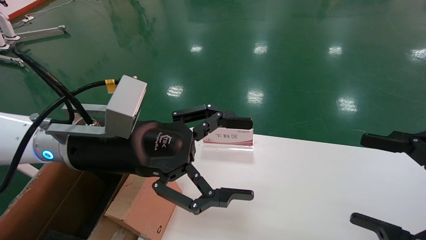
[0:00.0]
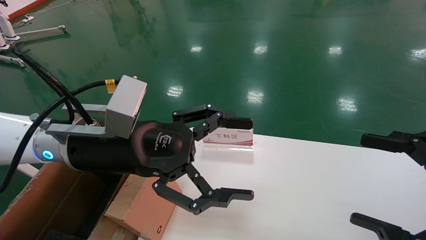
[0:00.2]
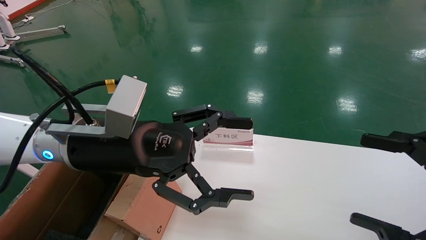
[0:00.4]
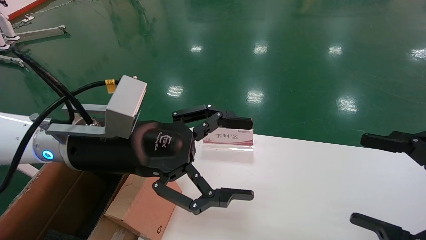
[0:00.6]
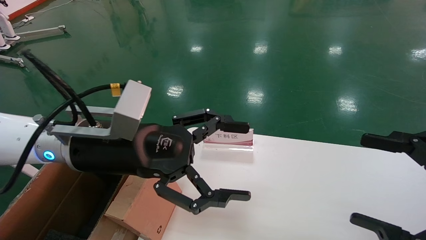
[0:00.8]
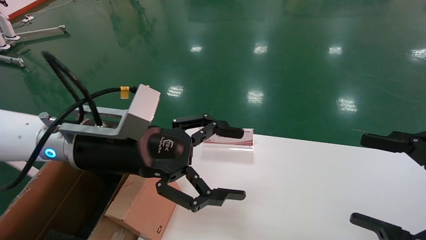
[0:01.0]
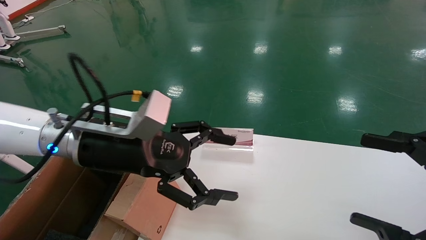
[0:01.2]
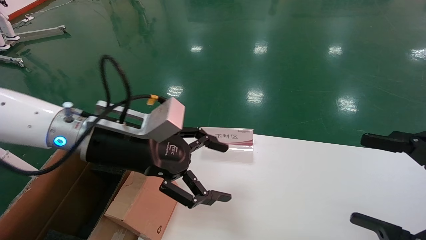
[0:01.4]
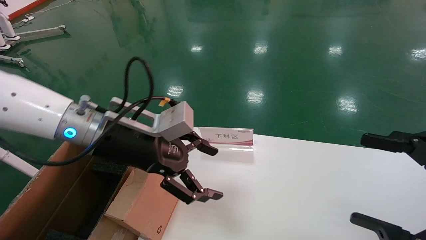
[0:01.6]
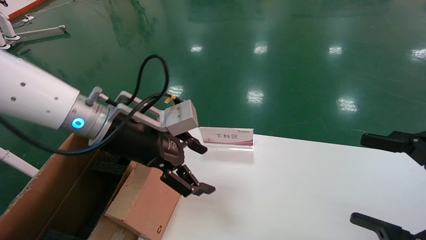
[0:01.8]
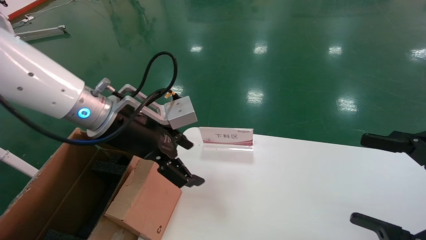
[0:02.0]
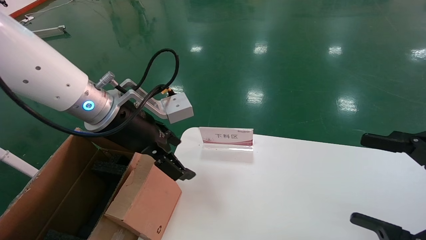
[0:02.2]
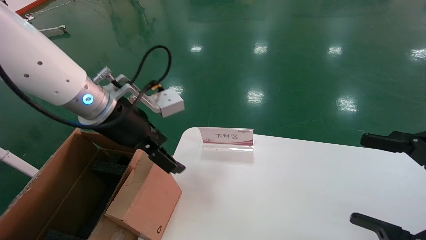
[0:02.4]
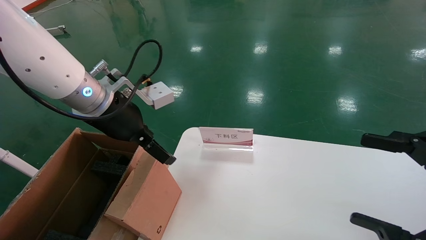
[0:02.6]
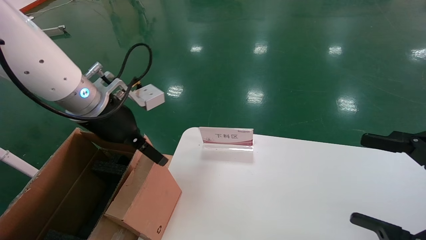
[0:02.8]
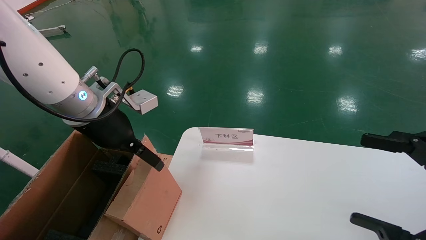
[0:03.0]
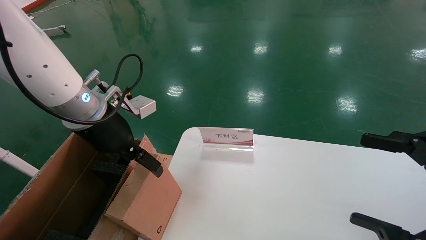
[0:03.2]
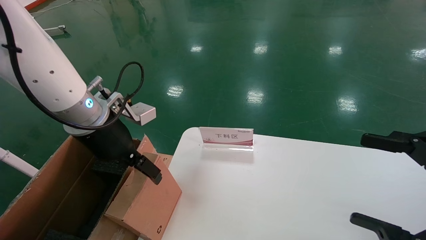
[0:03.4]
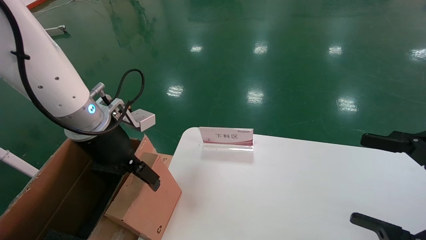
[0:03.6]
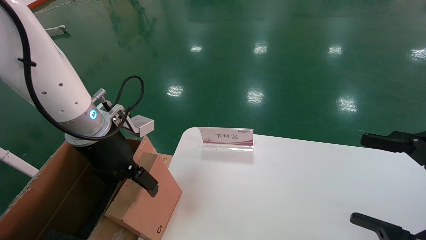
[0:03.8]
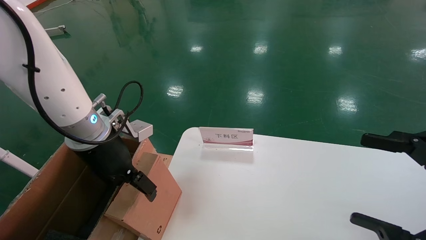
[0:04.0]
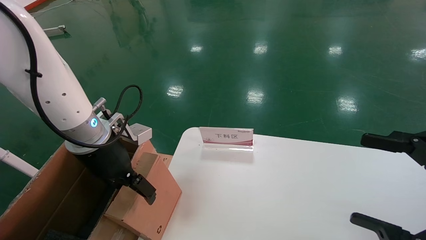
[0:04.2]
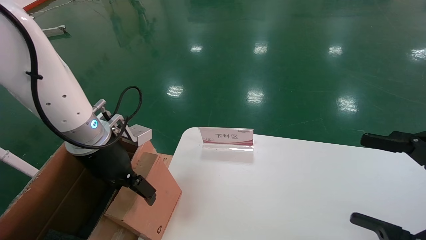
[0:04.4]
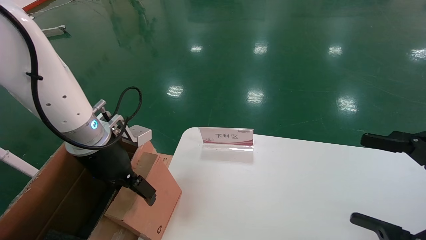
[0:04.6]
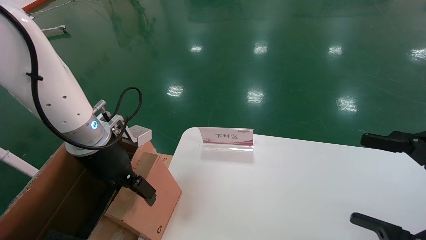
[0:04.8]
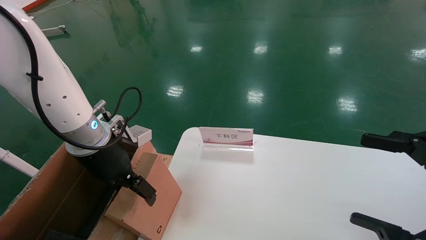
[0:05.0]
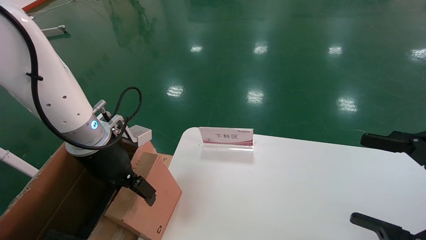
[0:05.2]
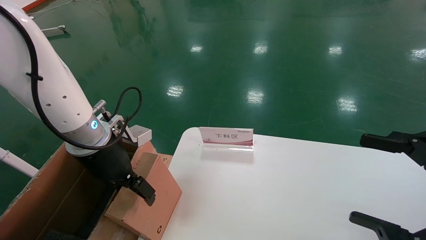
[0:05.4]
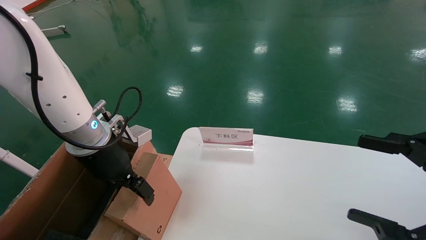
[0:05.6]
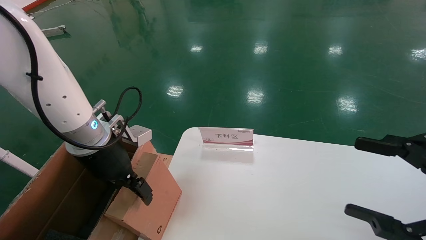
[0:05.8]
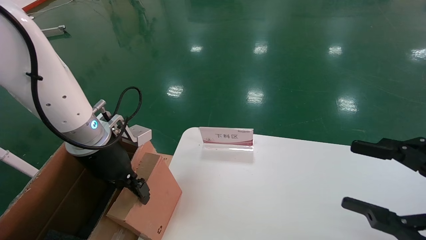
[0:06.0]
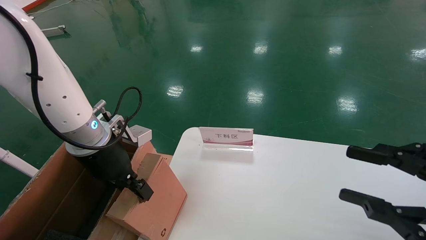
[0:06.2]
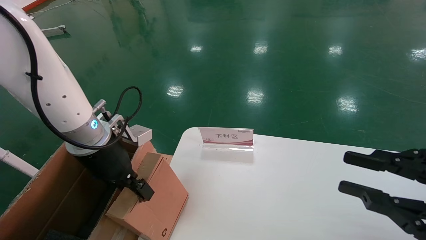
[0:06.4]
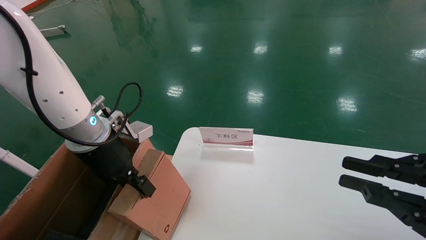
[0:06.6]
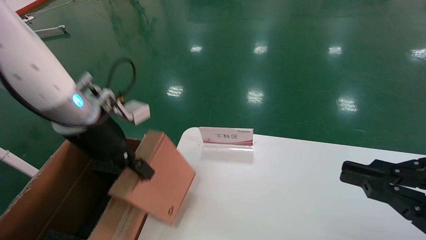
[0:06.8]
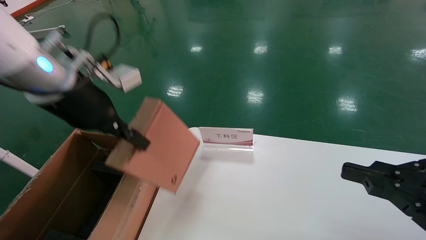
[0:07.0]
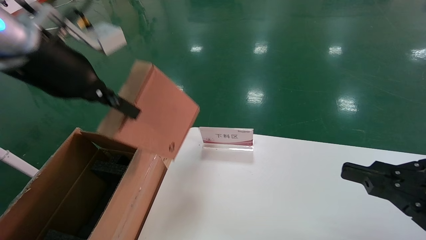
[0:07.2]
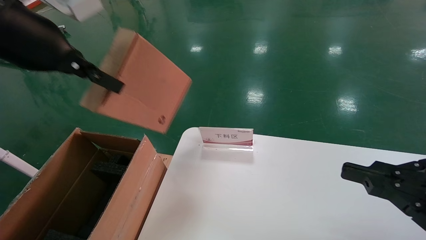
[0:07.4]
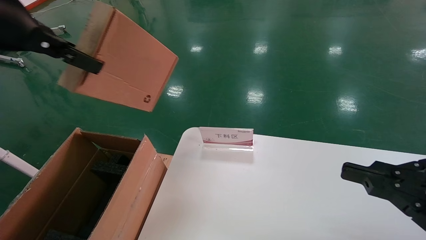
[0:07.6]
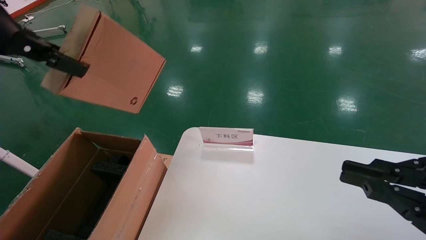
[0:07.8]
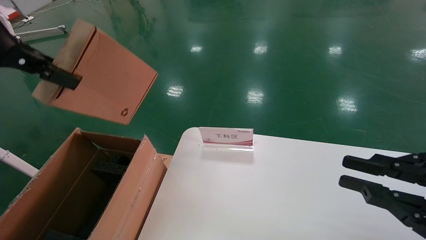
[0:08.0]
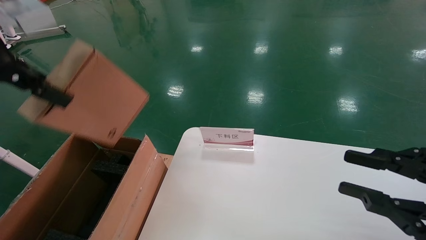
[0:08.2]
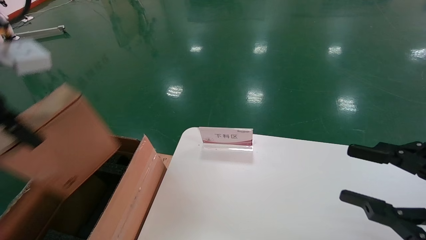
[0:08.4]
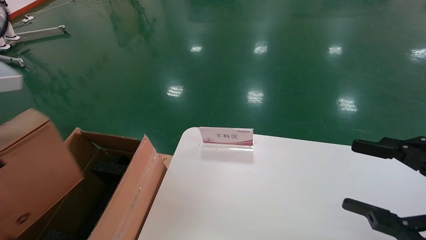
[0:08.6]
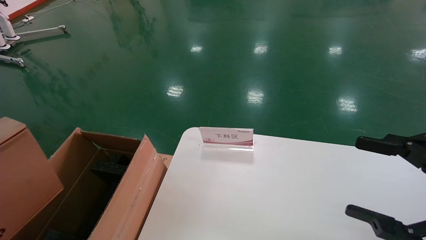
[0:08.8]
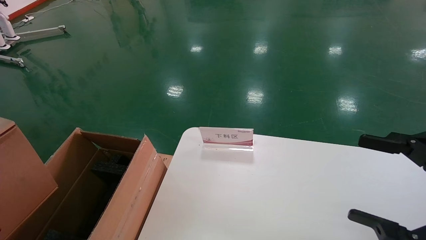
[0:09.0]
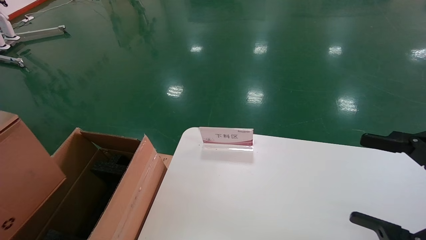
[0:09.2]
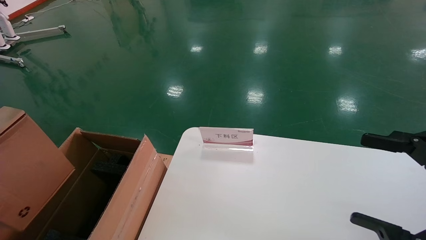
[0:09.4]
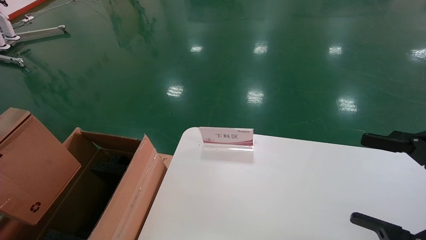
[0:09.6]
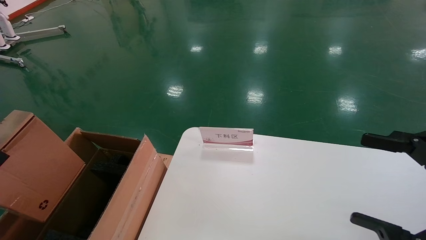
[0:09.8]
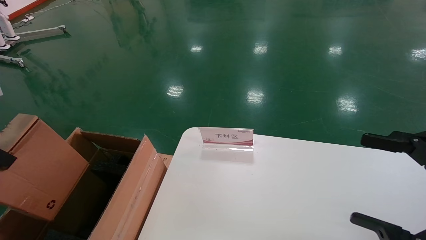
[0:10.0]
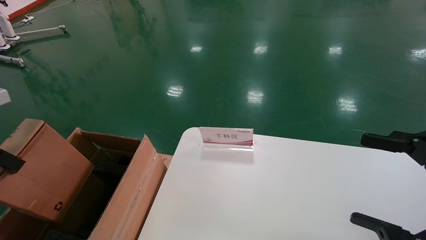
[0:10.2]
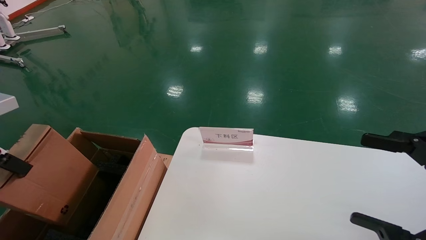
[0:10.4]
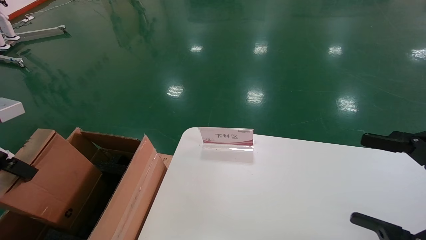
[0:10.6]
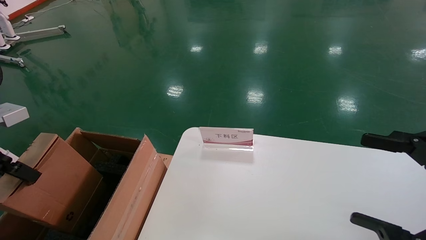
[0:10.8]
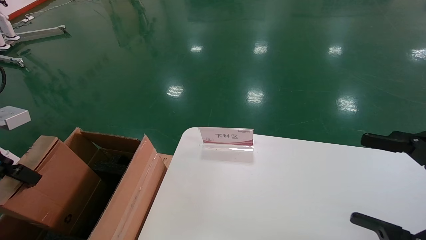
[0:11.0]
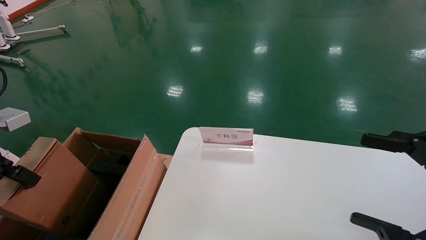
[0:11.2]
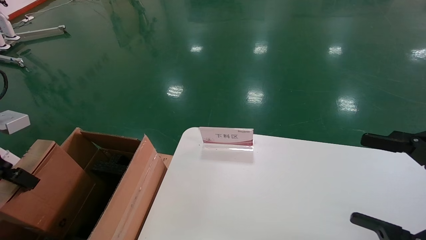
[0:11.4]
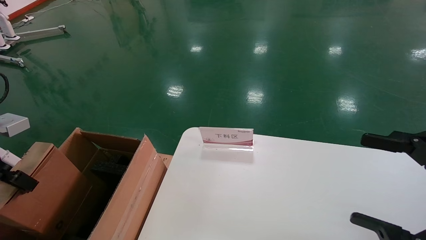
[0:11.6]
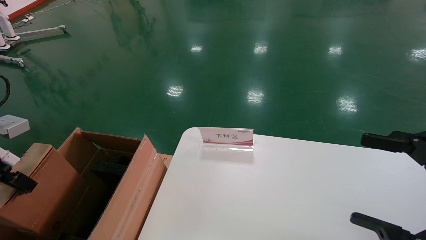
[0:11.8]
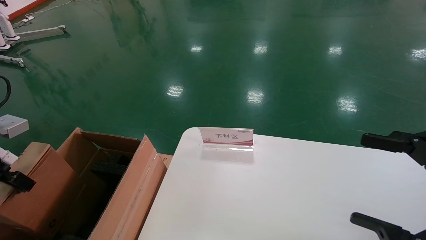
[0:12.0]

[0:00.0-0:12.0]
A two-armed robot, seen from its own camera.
Task of the whole recording: pick up the small cardboard box and load it into the large cardboard box.
Step, 0:01.4 to 0:05.8: Pick up the mouse and power cord box.
0:01.6 to 0:03.0: The left gripper shifts by roughly 5 cm.
0:03.0 to 0:04.4: There are only small adjustments of the grippers.
0:04.4 to 0:06.0: The left gripper closes.
0:06.0 to 0:07.6: The right gripper closes up. Meanwhile the left gripper is displaced upward and backward by roughly 25 cm, and closes up.
0:07.6 to 0:09.0: The left gripper heads to the left and backward, covering approximately 10 cm. The right gripper opens up.
0:09.0 to 0:10.4: The left gripper travels downward and to the left by about 10 cm.
0:10.4 to 0:12.0: The left gripper shifts by roughly 5 cm.

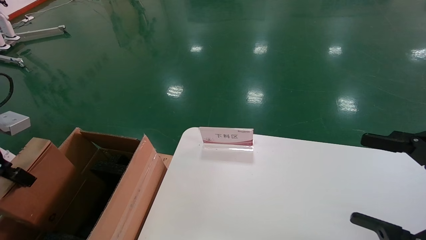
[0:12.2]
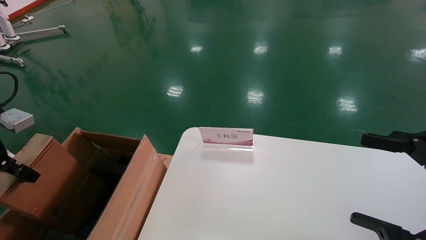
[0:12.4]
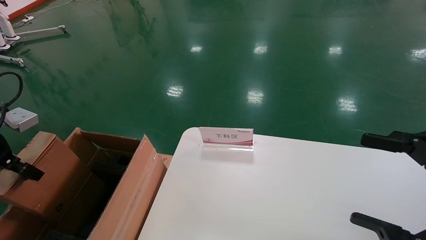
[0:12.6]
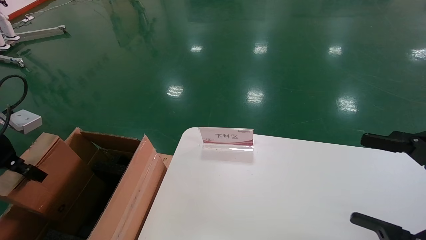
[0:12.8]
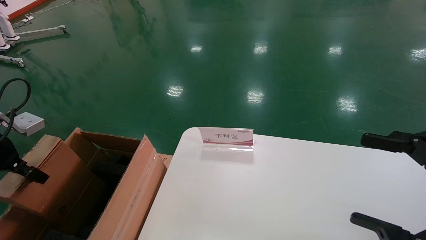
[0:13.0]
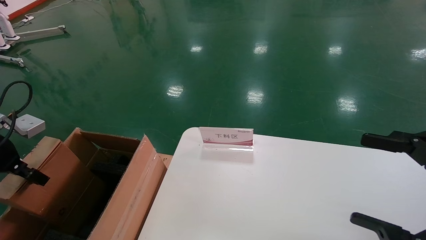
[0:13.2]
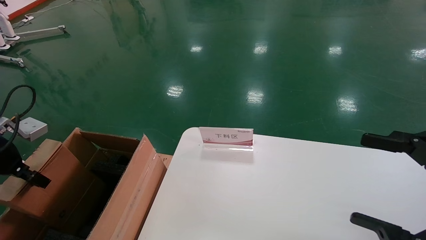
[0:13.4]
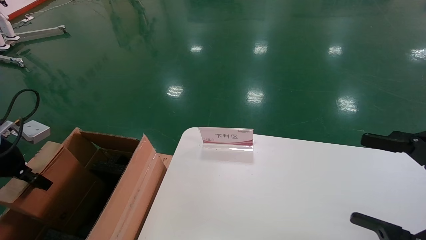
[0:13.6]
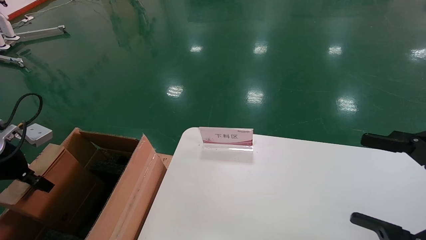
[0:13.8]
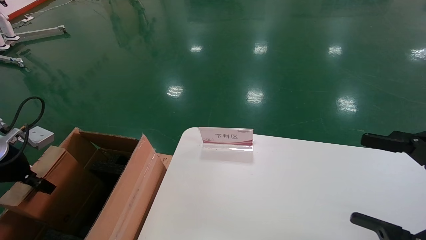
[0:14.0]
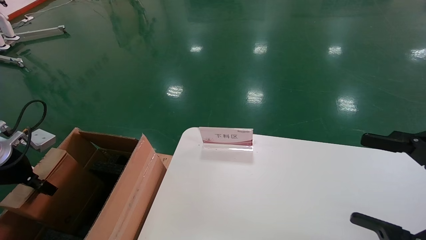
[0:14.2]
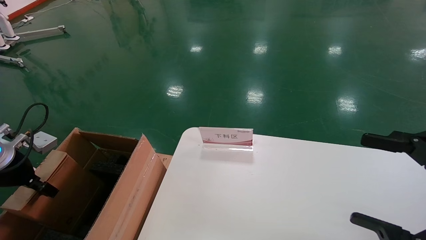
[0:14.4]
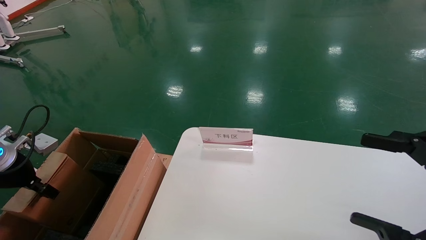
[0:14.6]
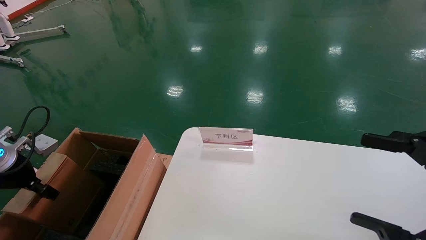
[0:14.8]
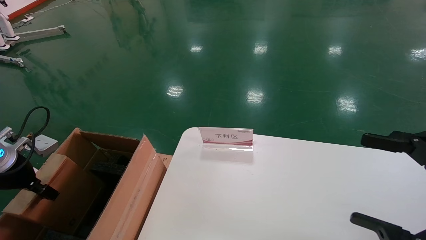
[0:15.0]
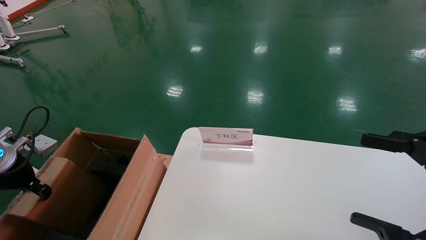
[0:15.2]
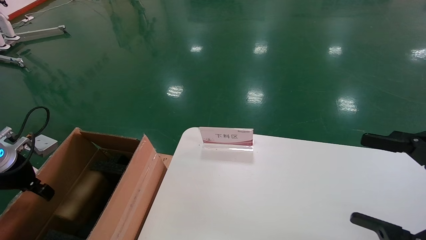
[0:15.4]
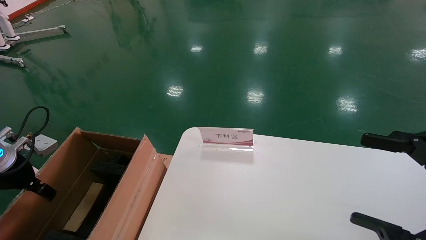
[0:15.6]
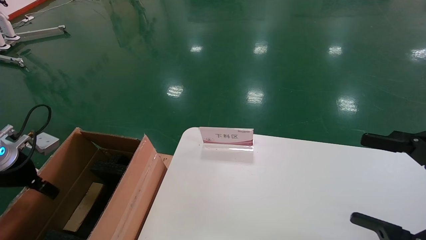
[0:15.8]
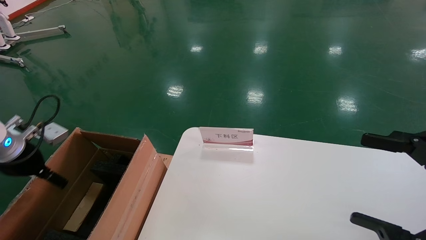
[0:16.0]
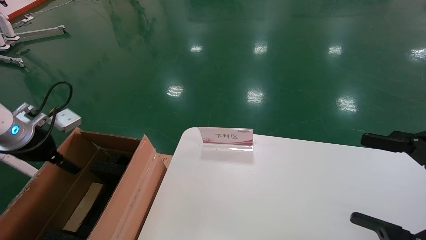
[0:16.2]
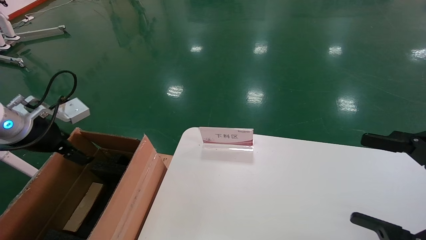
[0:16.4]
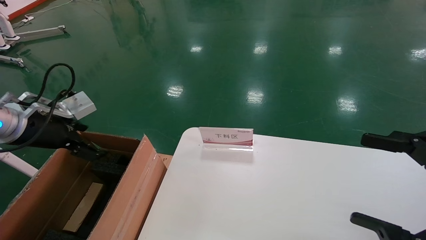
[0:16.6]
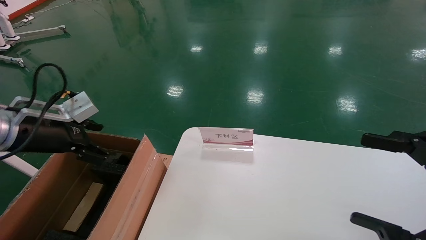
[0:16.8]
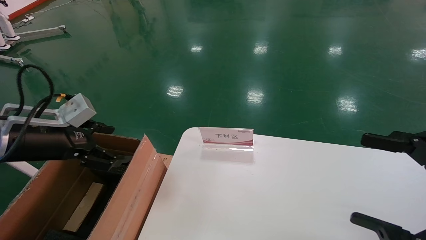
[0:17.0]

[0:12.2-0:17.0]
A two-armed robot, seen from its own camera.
Task of the whole recording: pick up the small cardboard box and load it into the large cardboard box.
Step, 0:12.2 to 0:15.8: Place the mouse and power cord box into the case.
0:12.2 to 0:13.8: The left gripper shifts roughly 5 cm downward.
0:13.8 to 0:15.4: The grippers move only a little.
0:15.4 to 0:17.0: The left gripper goes about 10 cm to the right and upward, and opens.
